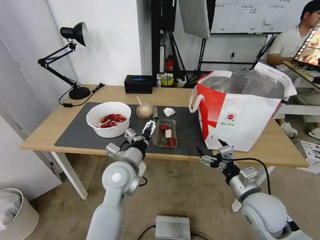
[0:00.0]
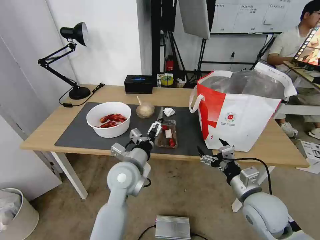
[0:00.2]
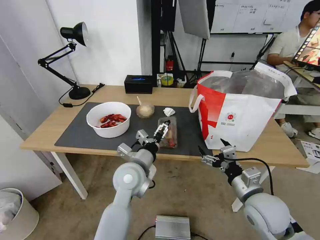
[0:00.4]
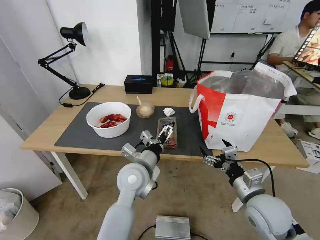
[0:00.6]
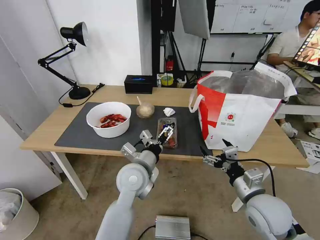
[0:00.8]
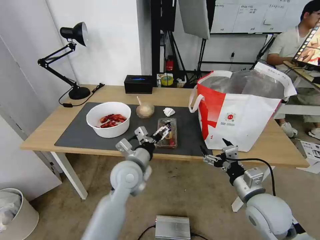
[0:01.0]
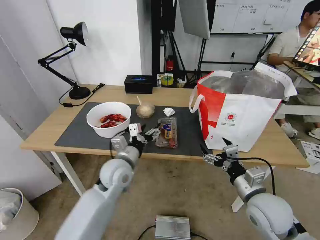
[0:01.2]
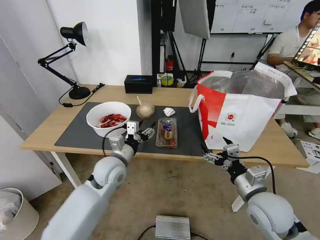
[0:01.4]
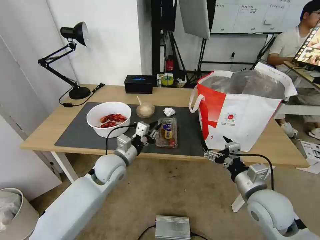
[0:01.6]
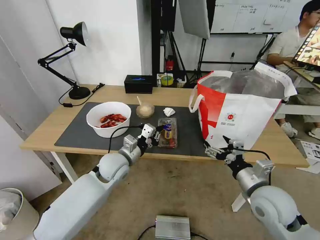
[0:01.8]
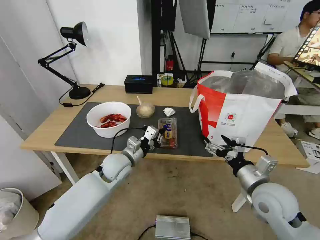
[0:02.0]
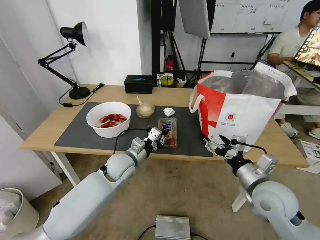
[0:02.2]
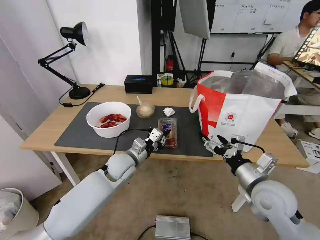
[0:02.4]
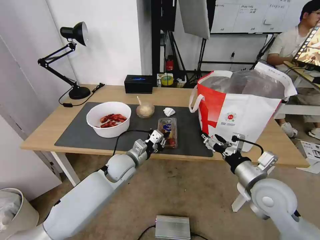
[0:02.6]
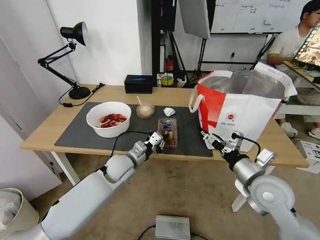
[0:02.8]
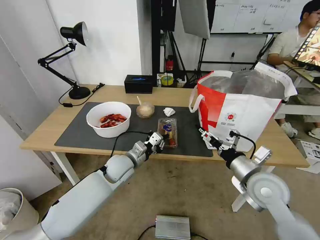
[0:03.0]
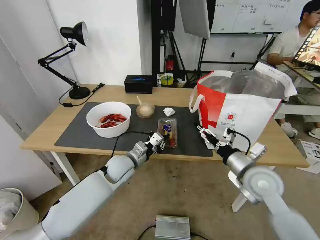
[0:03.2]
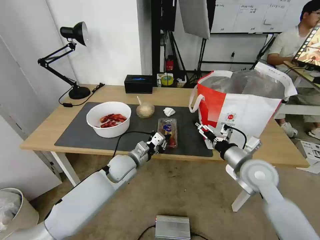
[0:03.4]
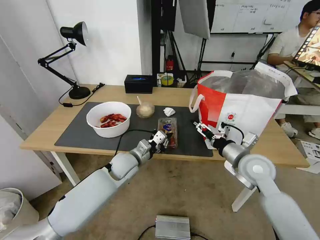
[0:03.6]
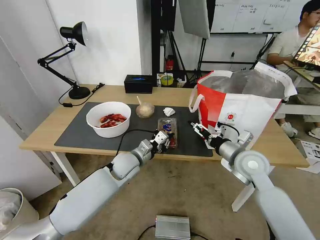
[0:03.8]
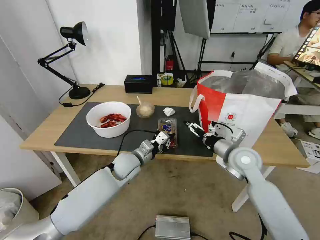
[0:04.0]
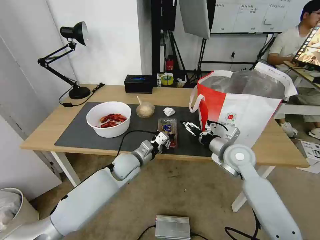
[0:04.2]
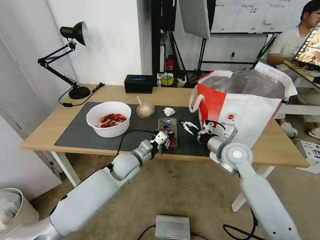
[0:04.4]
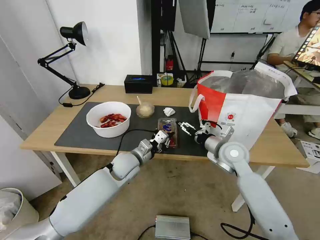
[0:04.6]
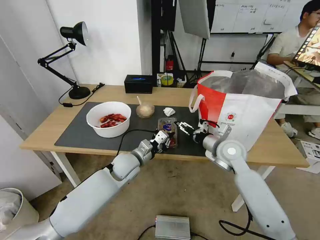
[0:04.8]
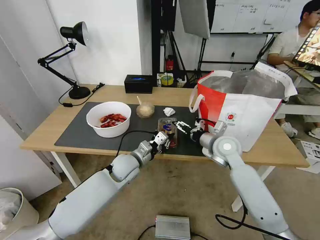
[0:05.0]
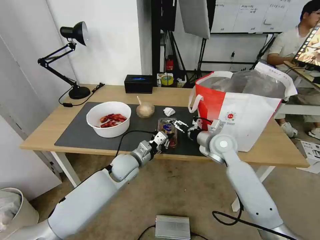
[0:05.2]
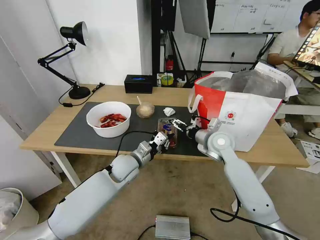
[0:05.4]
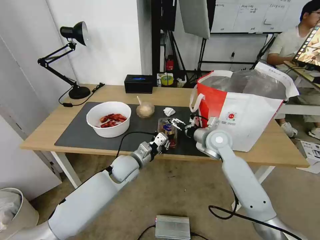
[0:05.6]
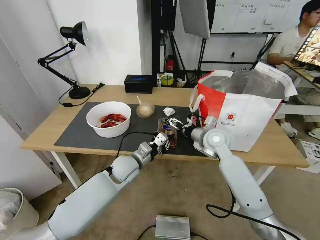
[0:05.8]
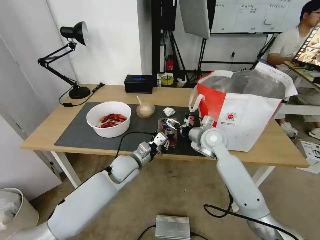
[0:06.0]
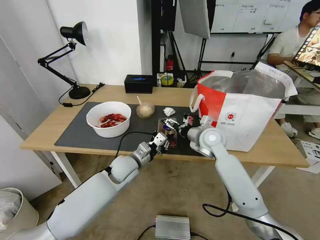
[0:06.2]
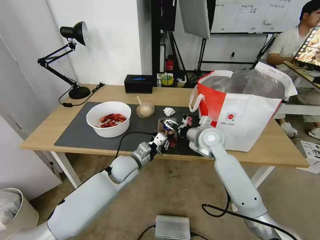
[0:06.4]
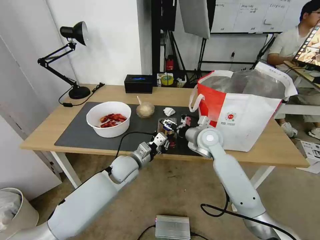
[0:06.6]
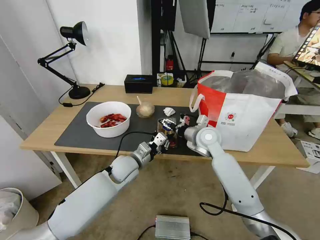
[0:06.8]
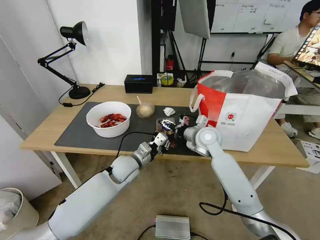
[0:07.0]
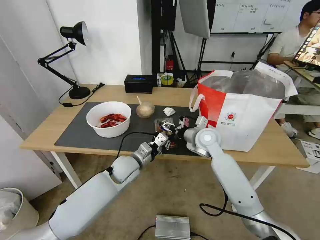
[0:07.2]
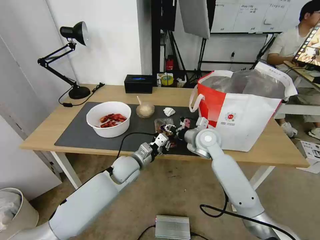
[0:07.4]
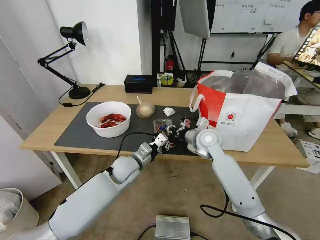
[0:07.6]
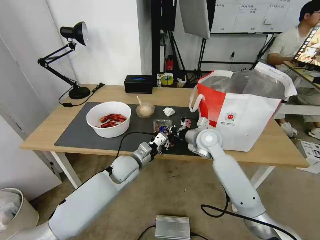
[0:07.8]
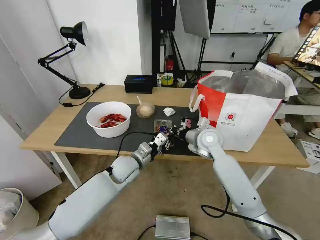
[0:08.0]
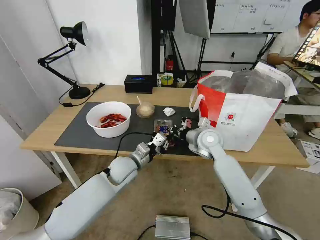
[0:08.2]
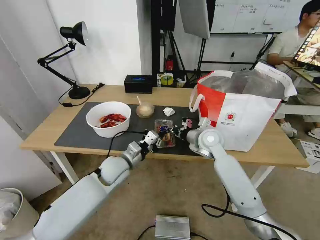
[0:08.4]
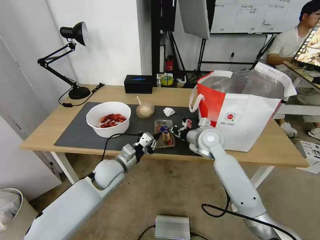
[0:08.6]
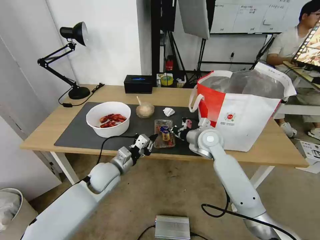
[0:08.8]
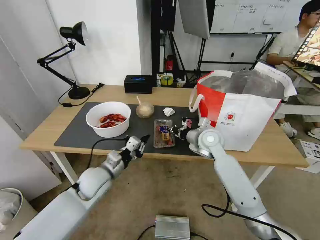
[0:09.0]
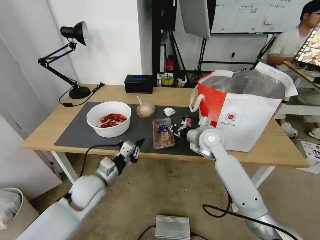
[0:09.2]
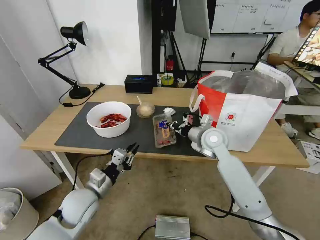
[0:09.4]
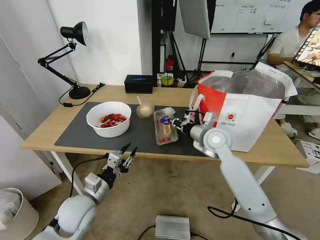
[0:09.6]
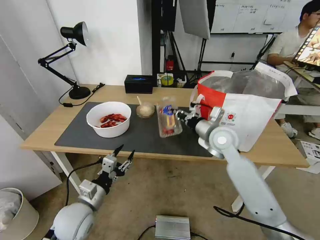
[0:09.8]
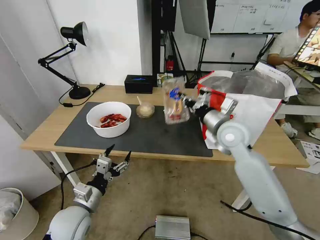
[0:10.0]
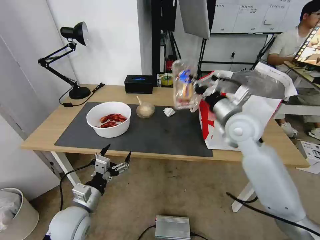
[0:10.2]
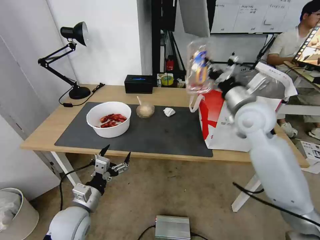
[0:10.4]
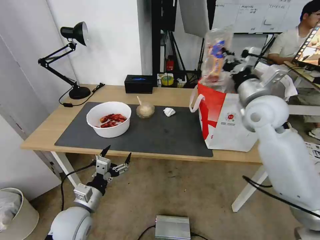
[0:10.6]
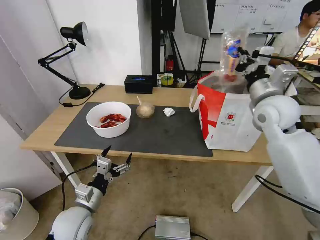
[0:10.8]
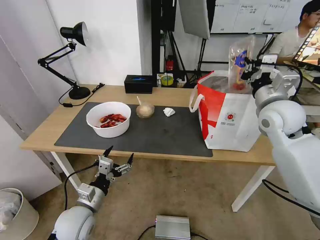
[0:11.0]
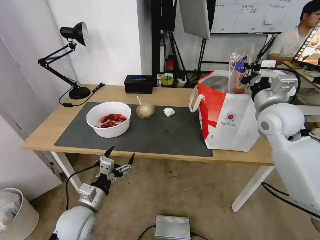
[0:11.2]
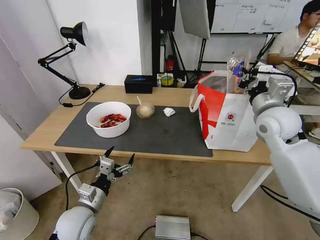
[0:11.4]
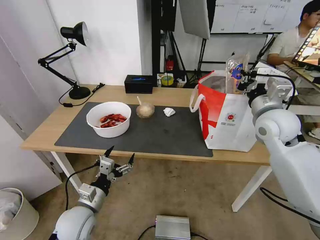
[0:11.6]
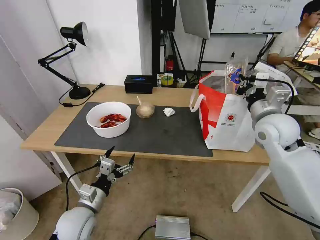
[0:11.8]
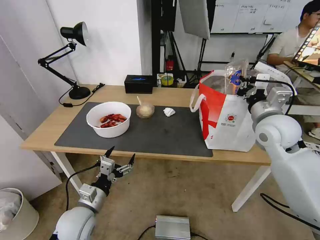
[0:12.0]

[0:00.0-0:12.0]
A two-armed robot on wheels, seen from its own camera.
Task of the whole recording: Pick up the trash from the table and place it into the takeout bag.
0:00.0 to 0:01.6: The left gripper moves to the left, some 5 cm, and closes its fingers.
0:01.6 to 0:03.0: The left gripper shifts by about 5 cm, and closes its fingers. Meanwhile the right gripper moves some 5 cm.
0:03.0 to 0:04.4: The right gripper goes approximately 10 cm forward.
0:04.4 to 0:06.0: The right gripper travels forward and to the left by approximately 10 cm.
0:06.0 to 0:07.6: The right gripper closes.
0:07.6 to 0:09.0: The left gripper travels to the left and backward by about 10 cm.
0:09.0 to 0:10.4: The left gripper travels backward by some 10 cm, and opens. Meanwhile the right gripper travels upward and to the right by some 15 cm.
0:10.4 to 0:12.0: The right gripper is displaced to the right by roughly 5 cm.

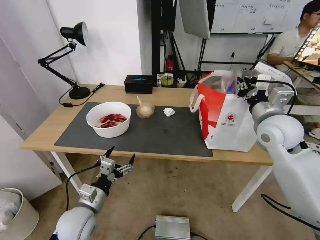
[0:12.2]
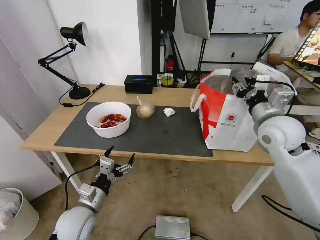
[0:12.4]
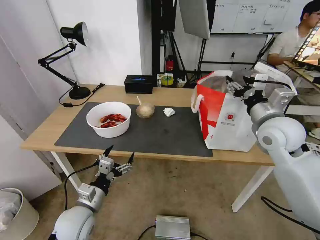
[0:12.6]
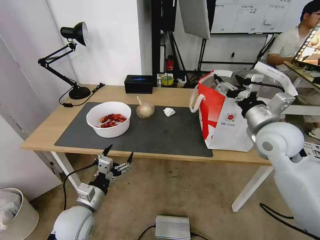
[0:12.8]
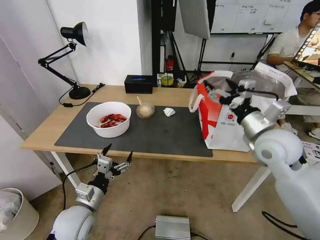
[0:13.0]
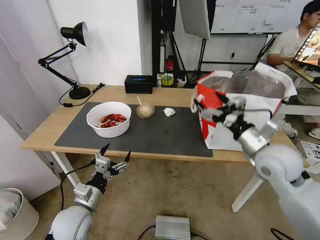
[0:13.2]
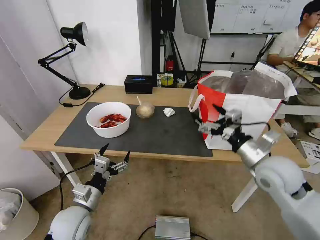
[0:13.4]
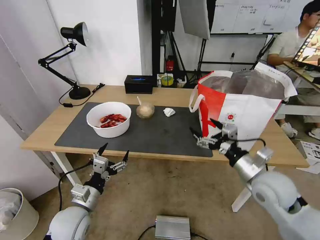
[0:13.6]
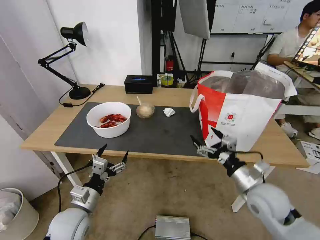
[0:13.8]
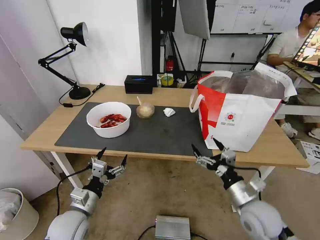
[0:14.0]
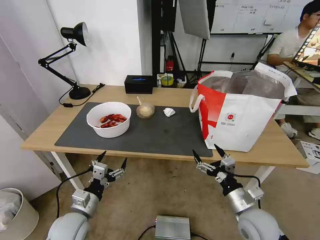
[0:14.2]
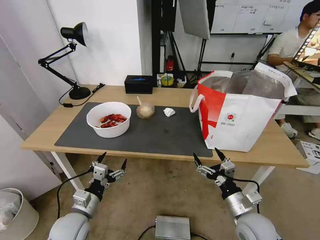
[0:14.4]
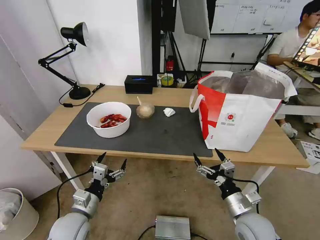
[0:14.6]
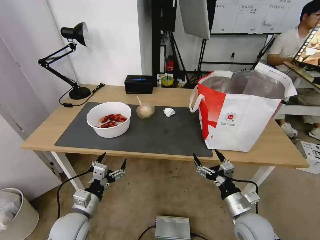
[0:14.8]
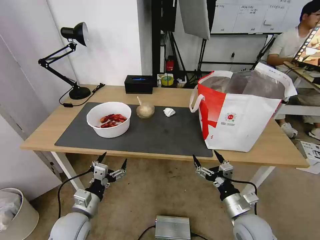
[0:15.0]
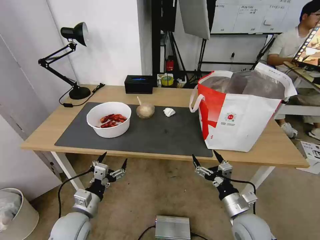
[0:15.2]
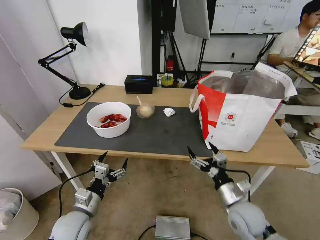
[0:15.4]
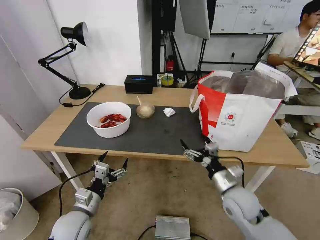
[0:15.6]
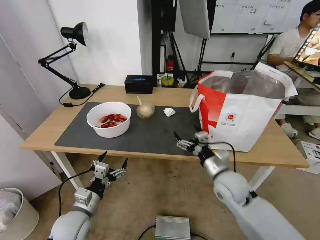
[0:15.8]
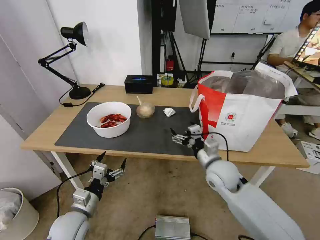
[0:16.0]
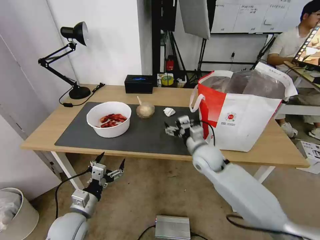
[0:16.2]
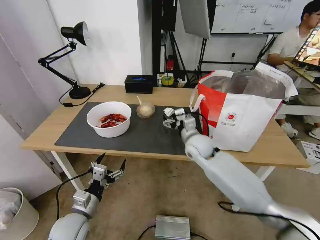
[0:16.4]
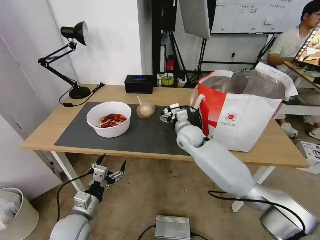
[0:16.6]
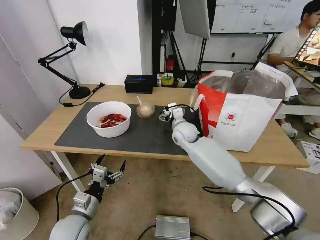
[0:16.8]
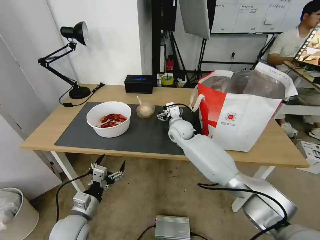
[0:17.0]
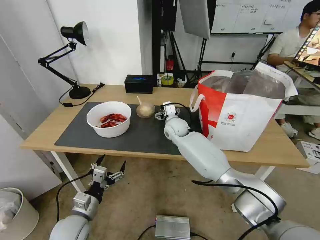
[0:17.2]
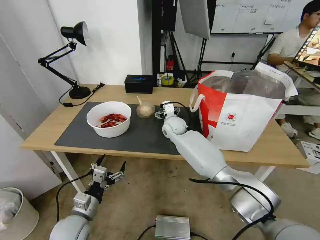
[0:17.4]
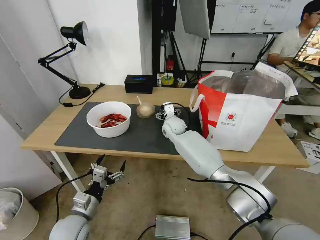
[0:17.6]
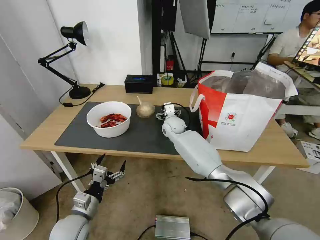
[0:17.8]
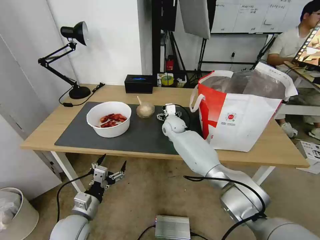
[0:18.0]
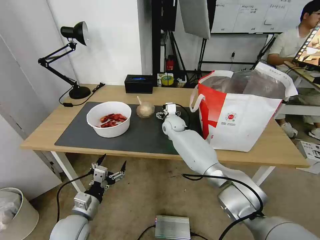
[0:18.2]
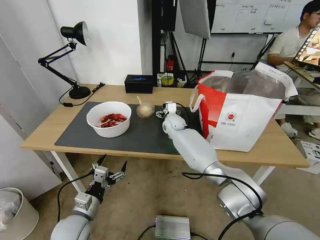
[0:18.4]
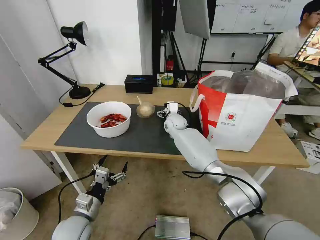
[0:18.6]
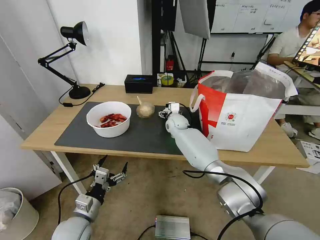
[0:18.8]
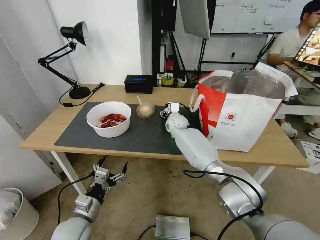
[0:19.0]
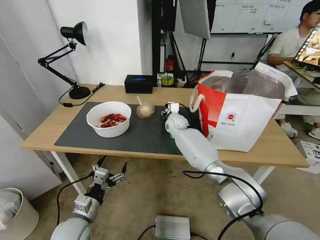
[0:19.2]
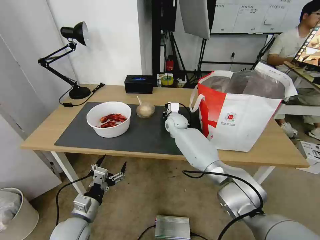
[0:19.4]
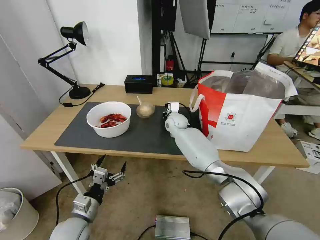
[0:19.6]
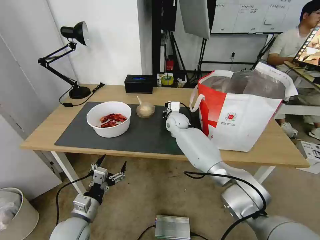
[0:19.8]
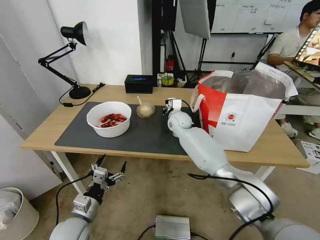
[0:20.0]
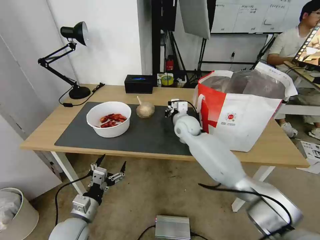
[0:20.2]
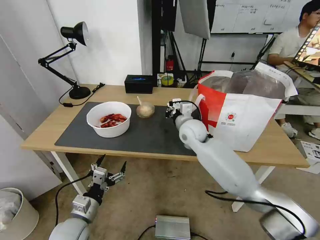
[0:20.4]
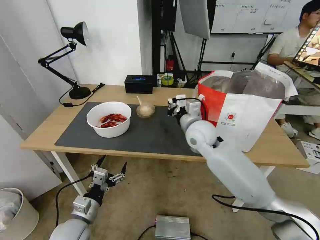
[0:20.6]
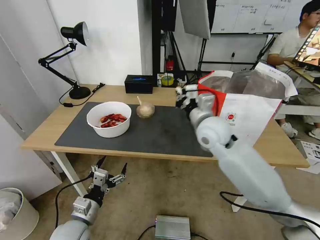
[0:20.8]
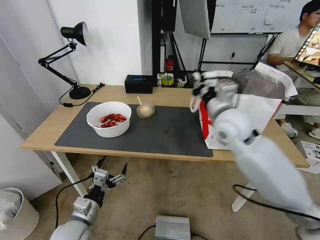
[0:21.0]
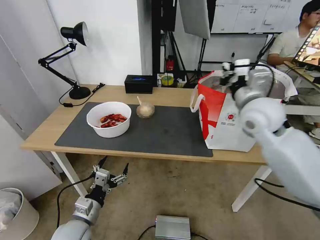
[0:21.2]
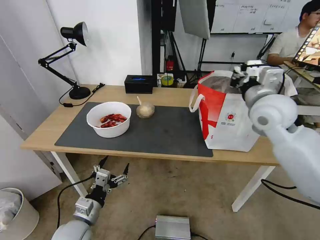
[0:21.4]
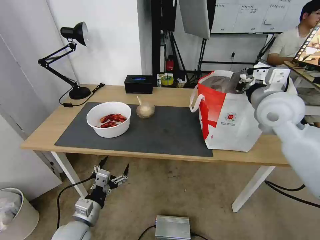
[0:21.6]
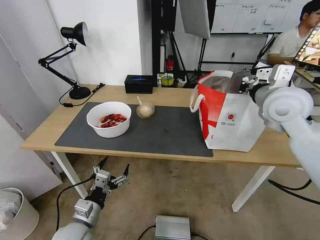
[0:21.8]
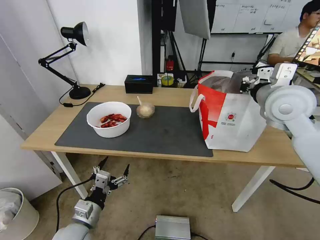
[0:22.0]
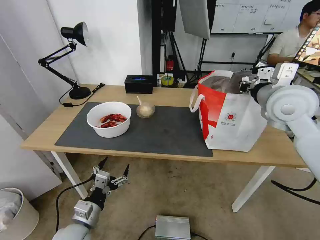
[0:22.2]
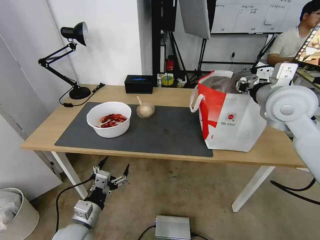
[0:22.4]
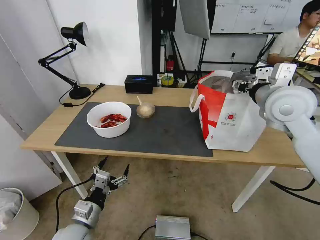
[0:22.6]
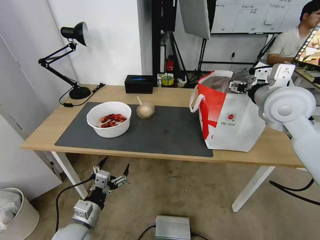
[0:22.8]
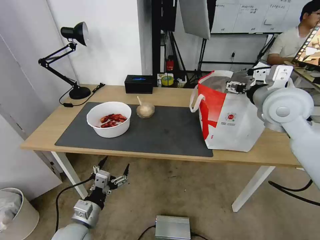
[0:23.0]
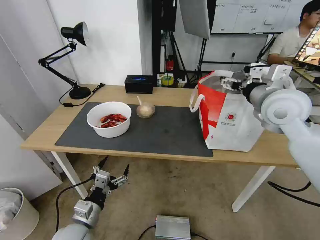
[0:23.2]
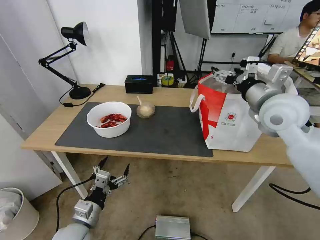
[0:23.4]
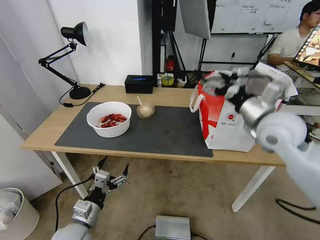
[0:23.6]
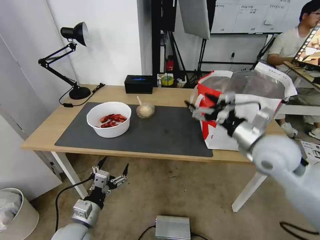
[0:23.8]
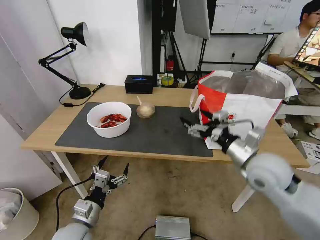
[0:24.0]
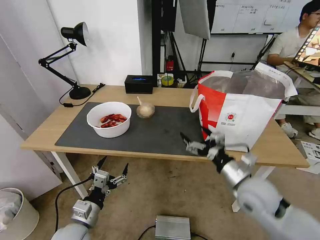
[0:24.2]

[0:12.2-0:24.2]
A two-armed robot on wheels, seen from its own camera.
Task of the whole recording: Pick up the trash from the table and place it into the takeout bag.
0:12.2 to 0:13.8: The right gripper goes roughly 20 cm downward and backward, and opens its fingers.
0:13.8 to 0:15.2: The right gripper moves downward, about 10 cm.
0:15.2 to 0:16.6: The right gripper is displaced forward and to the left by some 30 cm.
0:16.6 to 0:18.2: The right gripper goes approximately 10 cm forward and to the left.
0:18.2 to 0:19.8: The right gripper closes its fingers.
0:19.8 to 0:21.2: The right gripper goes about 35 cm upward, backward and to the right.
0:21.2 to 0:22.6: The right gripper is displaced to the right by some 5 cm, and opens up.
0:22.6 to 0:24.2: The right gripper travels downward and backward by about 25 cm, and opens.
